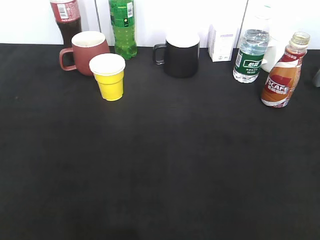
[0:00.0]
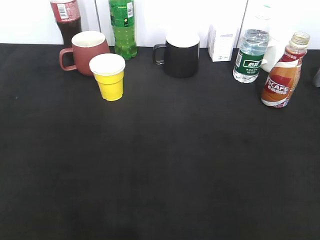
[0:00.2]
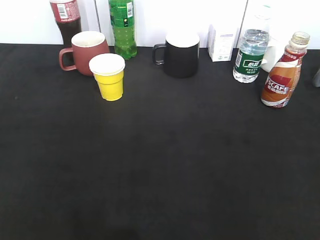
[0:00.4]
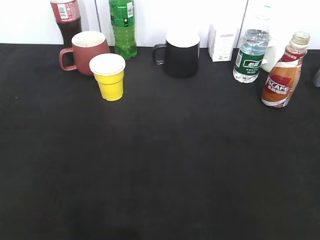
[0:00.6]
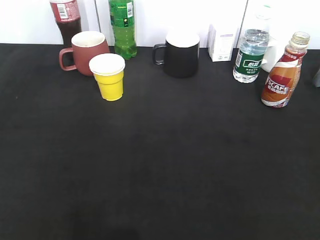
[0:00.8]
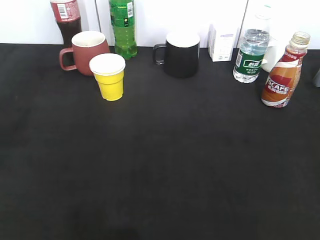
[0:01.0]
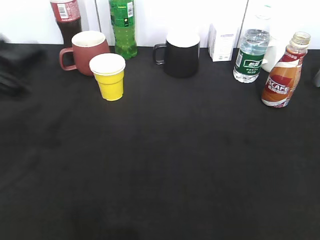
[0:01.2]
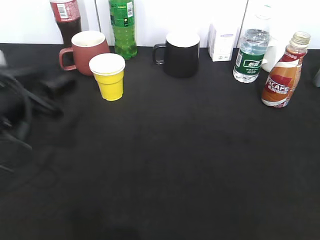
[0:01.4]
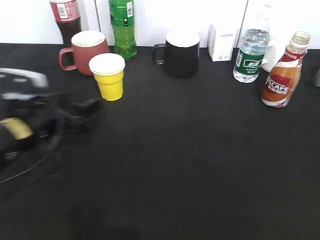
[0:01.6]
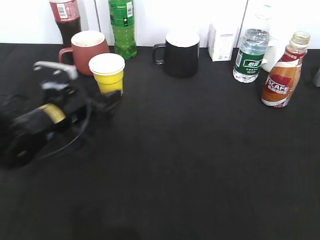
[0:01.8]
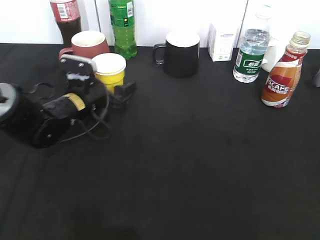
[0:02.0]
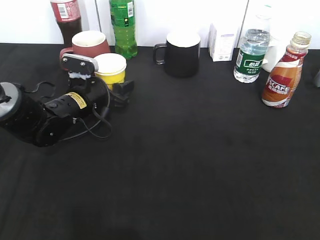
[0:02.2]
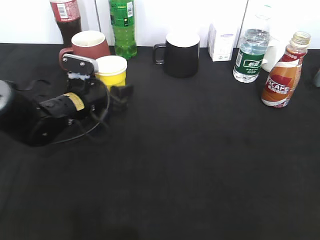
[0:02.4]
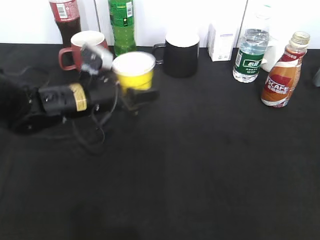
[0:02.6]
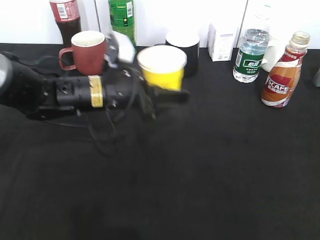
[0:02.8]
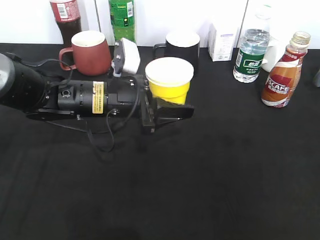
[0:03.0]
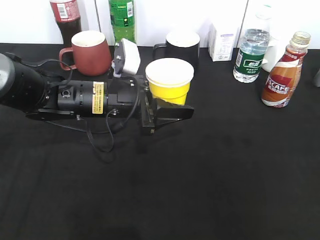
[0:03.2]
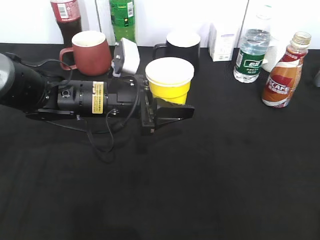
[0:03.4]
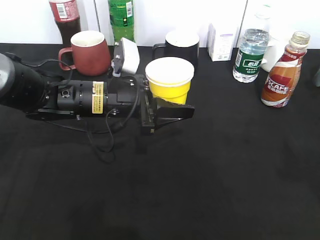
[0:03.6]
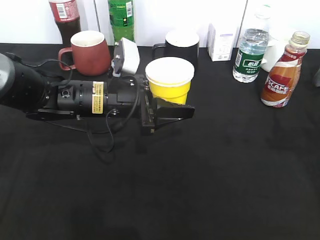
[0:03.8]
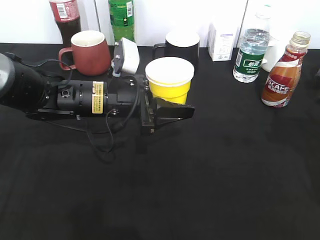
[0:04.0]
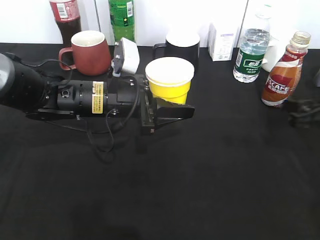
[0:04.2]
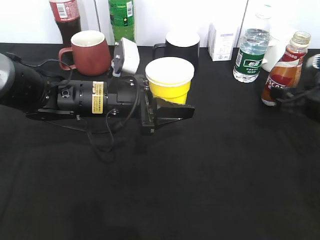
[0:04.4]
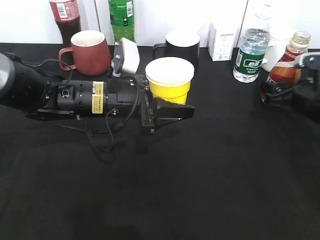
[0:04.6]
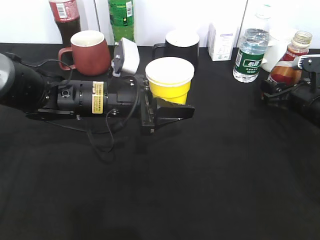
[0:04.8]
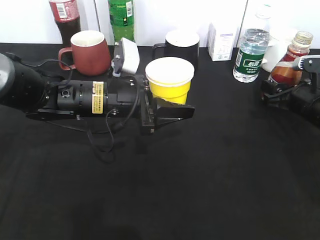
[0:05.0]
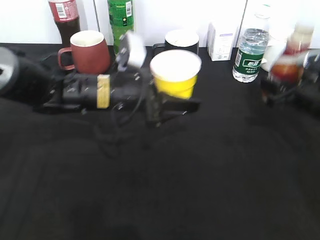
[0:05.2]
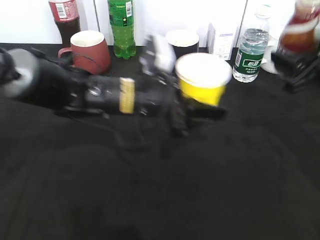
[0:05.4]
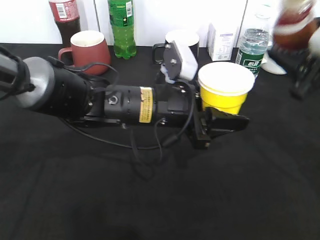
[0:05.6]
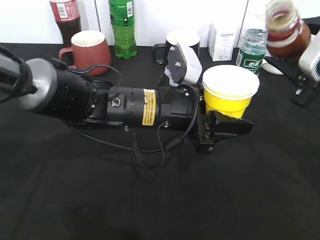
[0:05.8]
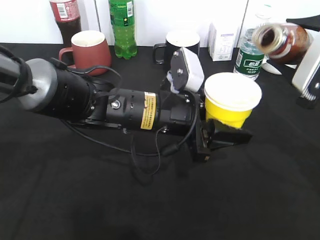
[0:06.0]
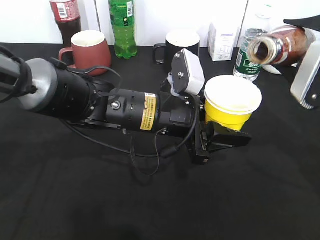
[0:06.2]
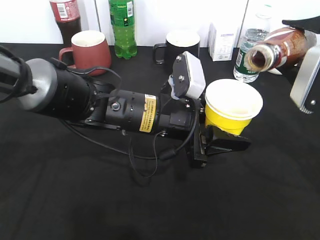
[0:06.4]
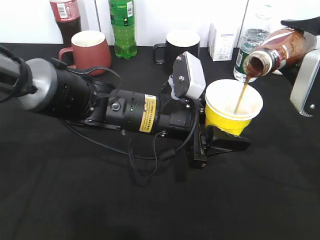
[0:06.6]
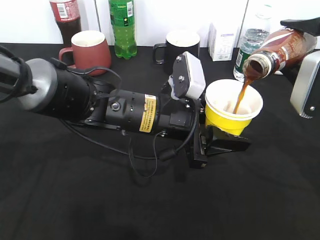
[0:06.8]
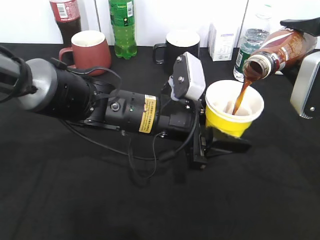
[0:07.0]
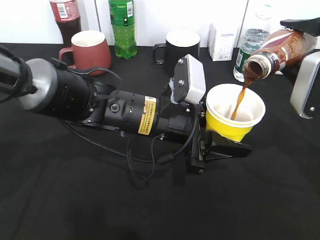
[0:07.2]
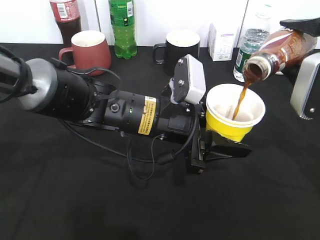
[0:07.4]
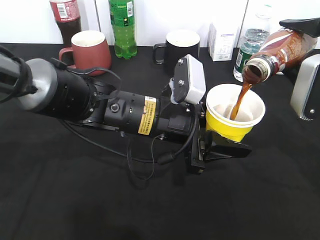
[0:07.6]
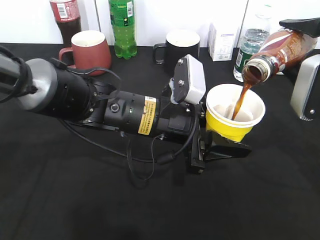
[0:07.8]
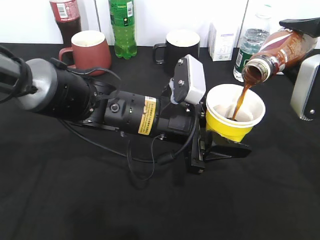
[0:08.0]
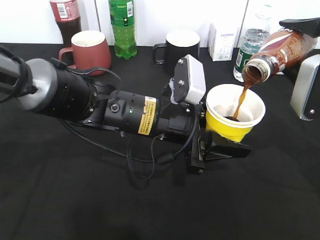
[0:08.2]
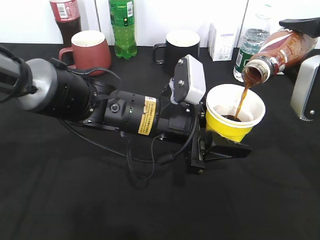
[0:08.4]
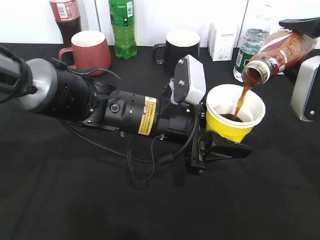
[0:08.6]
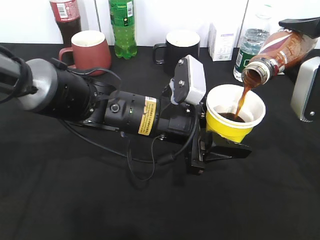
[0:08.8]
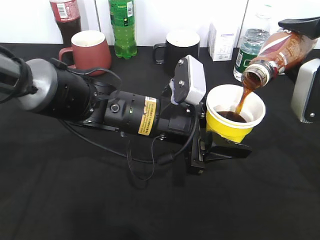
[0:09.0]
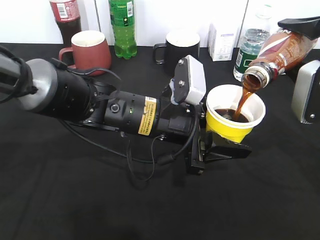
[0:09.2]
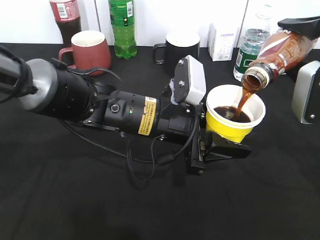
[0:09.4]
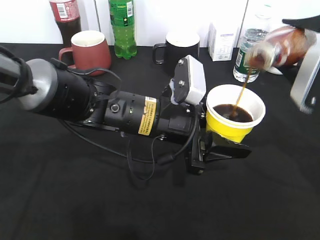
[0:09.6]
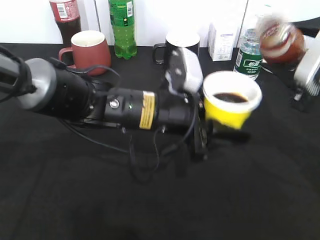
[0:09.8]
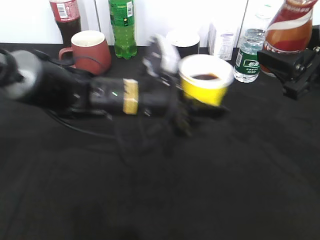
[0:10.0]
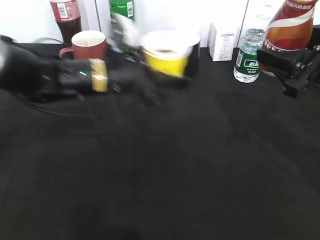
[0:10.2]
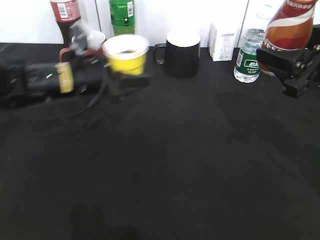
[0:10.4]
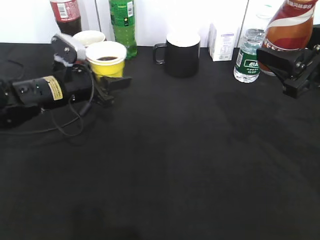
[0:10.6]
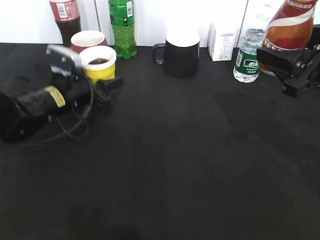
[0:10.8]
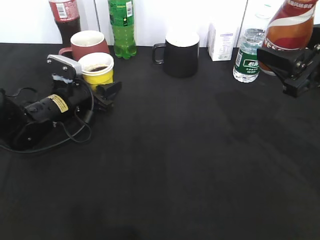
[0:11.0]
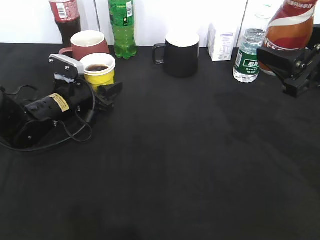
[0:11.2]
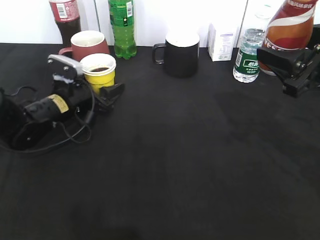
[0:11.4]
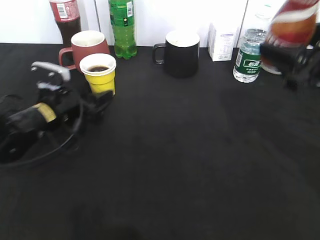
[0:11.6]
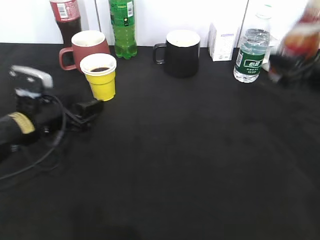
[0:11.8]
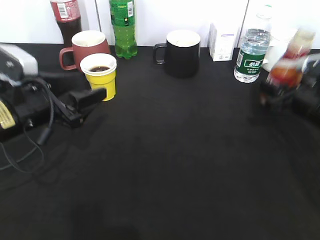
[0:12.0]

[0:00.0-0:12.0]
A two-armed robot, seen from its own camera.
Step, 0:01.2 to 0:02.2: Grasp the yellow paper cup with left gripper.
Step, 0:02.4 to 0:03.8: Lift the yellow paper cup with left gripper.
Step, 0:04.0 to 0:04.8: Grasp the bottle with coffee with right gripper.
Step, 0:05.2 to 0:09.6: Pour the coffee from bottle to cup with right gripper.
Step, 0:10.0 to 0:11.2: Place the yellow paper cup on the table with left gripper.
0:00.0 to 0:01.6: The left gripper is displaced forward, downward and to the right by approximately 35 cm, and opens.
0:01.6 to 0:03.0: The left gripper is displaced to the right by roughly 10 cm, and closes.
0:03.0 to 0:04.4: The right gripper goes approximately 35 cm forward and downward, and opens.
0:04.4 to 0:06.0: The left gripper moves to the right, approximately 10 cm. The right gripper goes some 10 cm upward, and closes up.
0:07.6 to 0:09.0: Both grippers stay put.
0:09.0 to 0:10.4: The left gripper moves to the left and forward, roughly 20 cm.
0:10.4 to 0:12.0: The left gripper is displaced backward and to the left by about 10 cm, and opens its fingers. The right gripper shifts roughly 15 cm downward and forward.

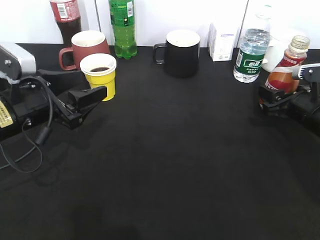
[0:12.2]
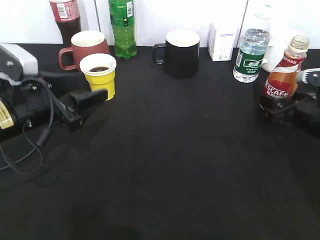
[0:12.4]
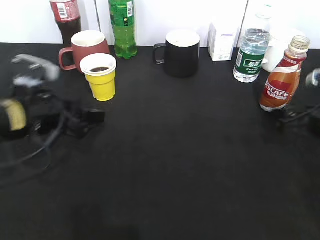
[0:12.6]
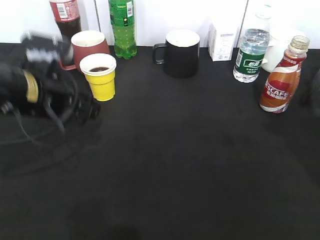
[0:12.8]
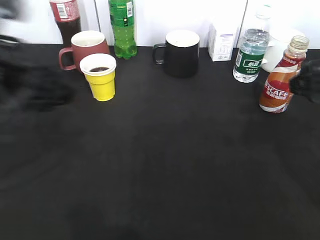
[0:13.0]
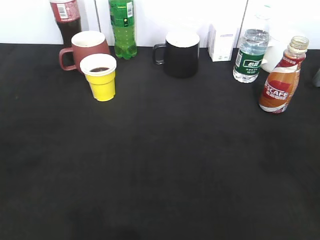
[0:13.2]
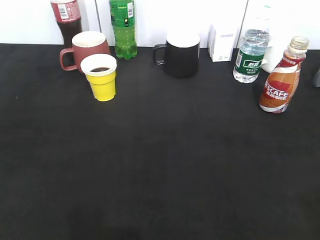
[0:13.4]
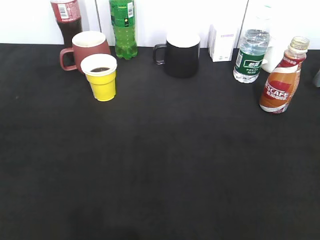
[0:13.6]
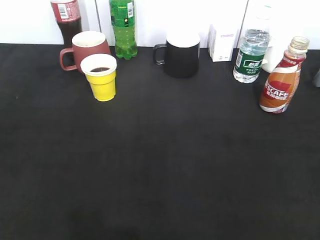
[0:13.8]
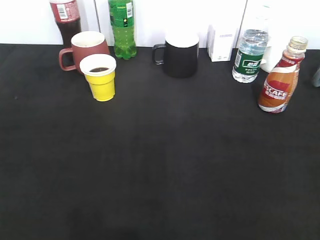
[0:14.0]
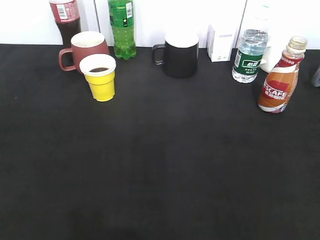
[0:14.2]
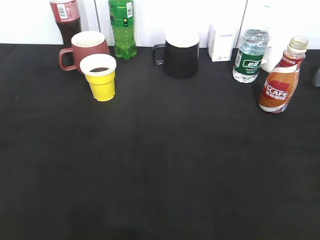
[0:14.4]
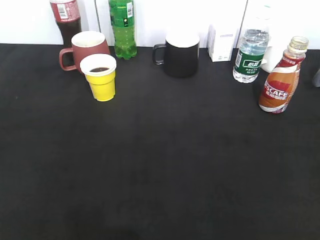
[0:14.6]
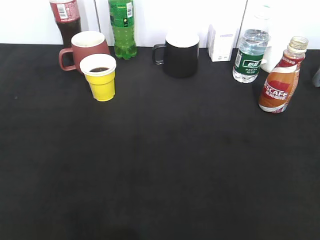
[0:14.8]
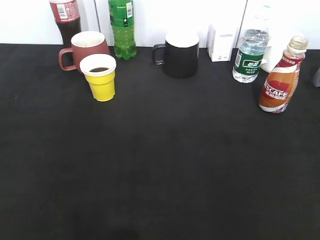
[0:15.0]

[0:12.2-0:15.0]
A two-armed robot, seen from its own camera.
0:12.2 to 0:13.6: The right gripper travels backward and upward by approximately 35 cm, and opens its fingers. The left gripper goes some 30 cm backward, upward and to the left.

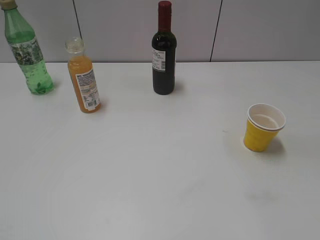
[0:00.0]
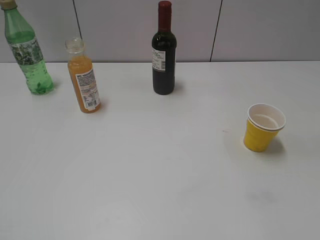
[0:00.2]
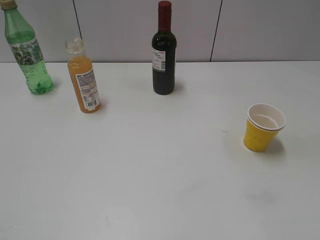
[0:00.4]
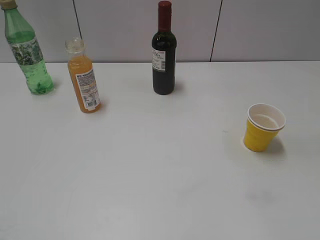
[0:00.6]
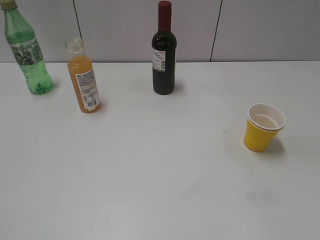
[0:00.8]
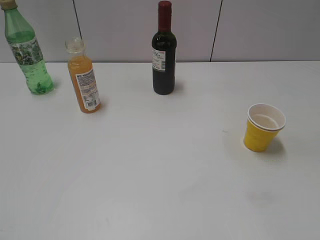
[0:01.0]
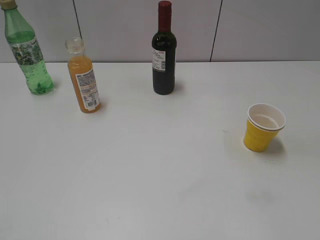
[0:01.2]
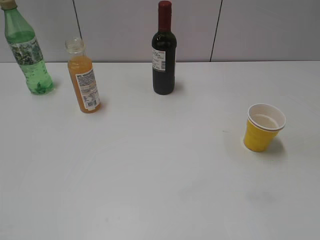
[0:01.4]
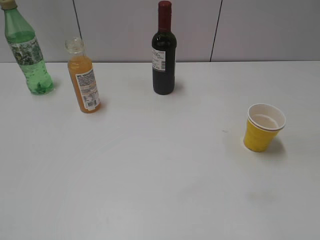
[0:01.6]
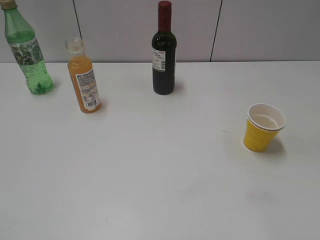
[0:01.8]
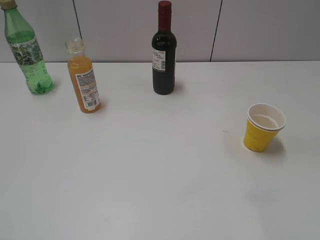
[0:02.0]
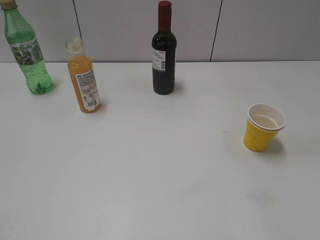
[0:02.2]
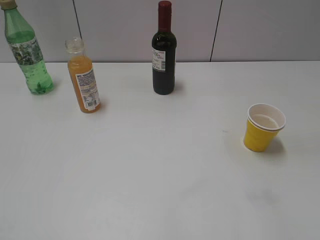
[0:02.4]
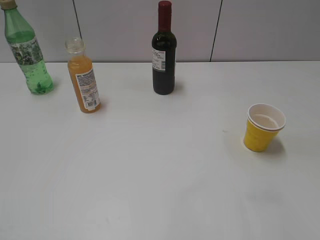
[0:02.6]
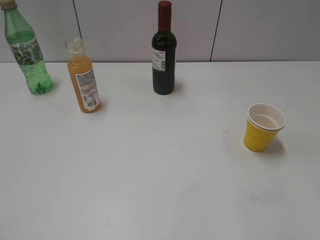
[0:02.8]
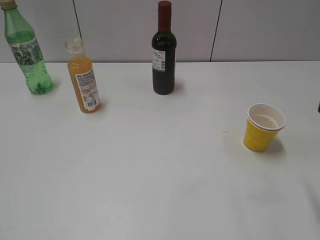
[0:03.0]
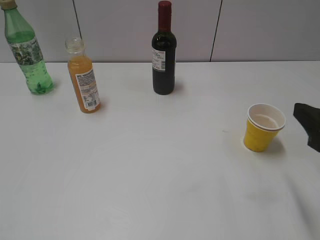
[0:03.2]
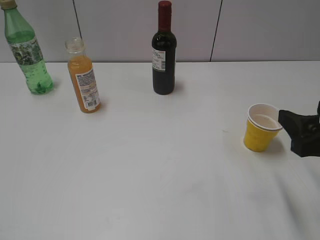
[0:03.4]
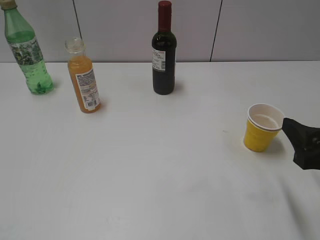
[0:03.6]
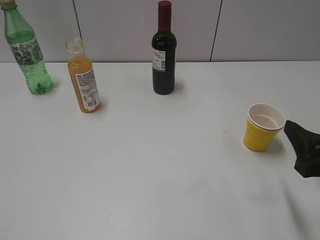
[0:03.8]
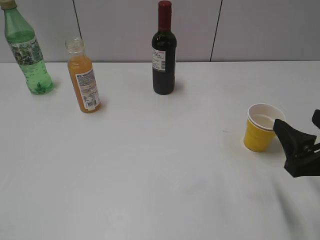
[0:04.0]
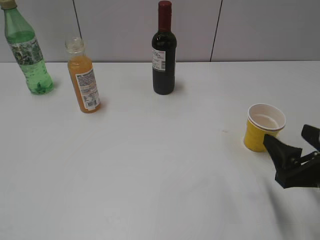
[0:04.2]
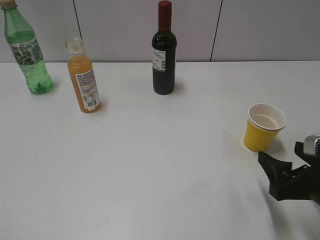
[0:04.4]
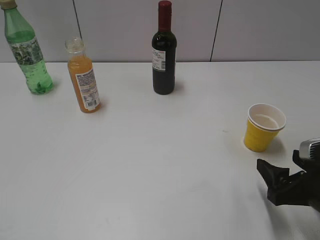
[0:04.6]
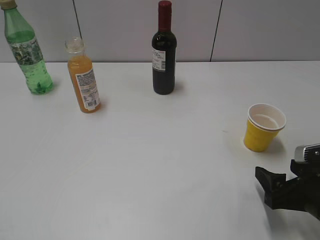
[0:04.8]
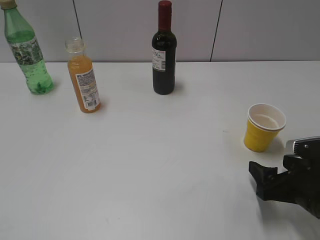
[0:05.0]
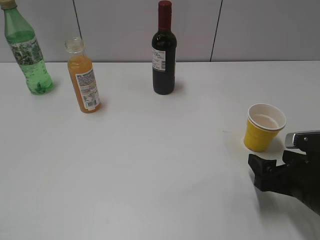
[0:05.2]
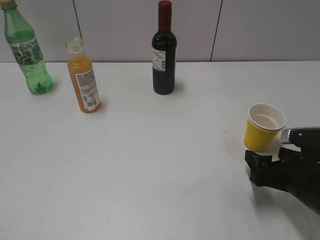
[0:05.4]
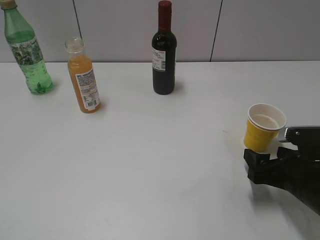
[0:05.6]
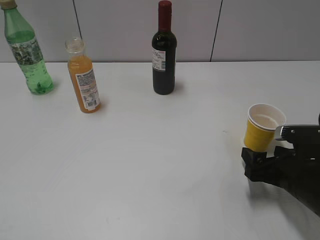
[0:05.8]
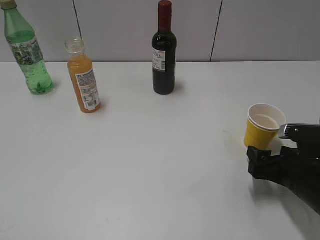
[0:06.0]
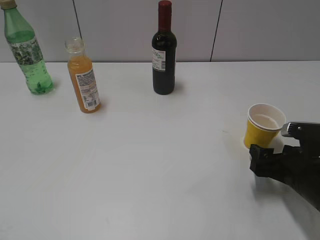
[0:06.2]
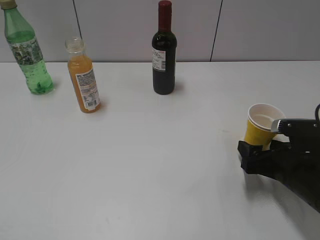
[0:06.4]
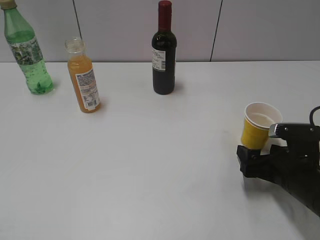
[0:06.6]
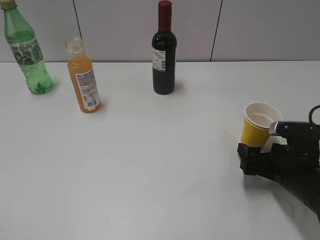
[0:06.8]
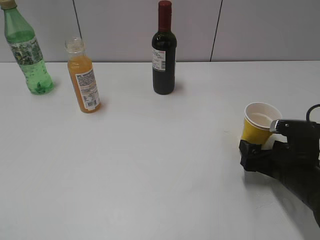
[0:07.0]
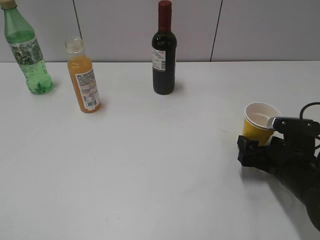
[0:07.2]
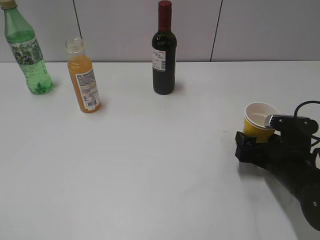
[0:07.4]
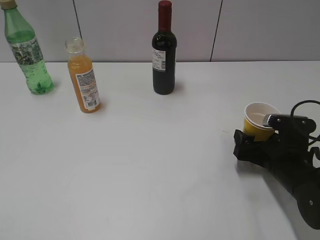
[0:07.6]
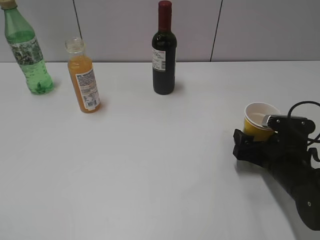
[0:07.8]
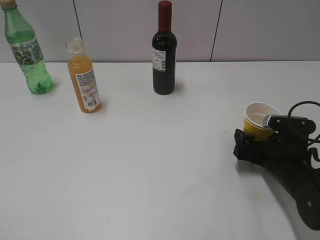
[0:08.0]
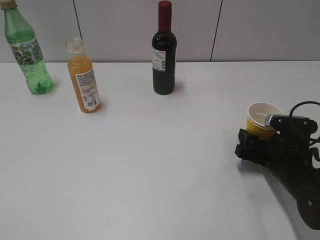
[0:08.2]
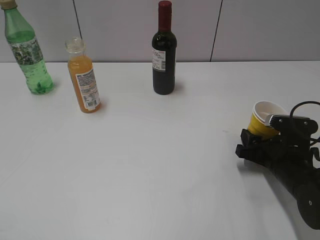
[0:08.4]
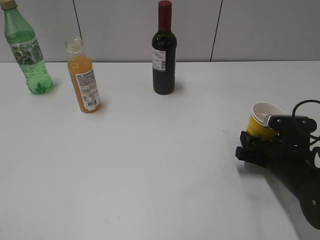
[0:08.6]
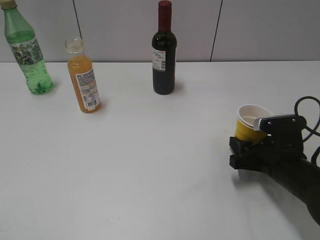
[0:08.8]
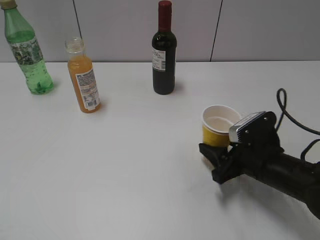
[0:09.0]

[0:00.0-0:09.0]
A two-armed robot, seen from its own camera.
Step, 0:03.0 to 0:08.2: Grasp the yellow paper cup with right gripper.
0:03.0 to 0:04.4: The right gripper is displaced downward by roughly 10 cm.
0:04.4 to 0:06.0: The right gripper moves some 5 cm.
0:06.0 to 0:07.6: The grippers make only small movements.
0:07.6 to 0:09.0: The right gripper closes its fingers.
